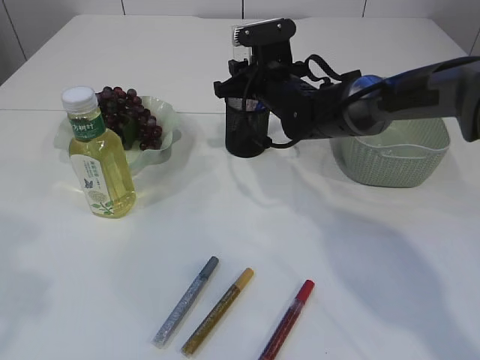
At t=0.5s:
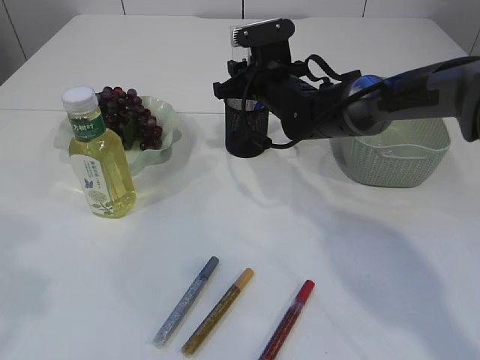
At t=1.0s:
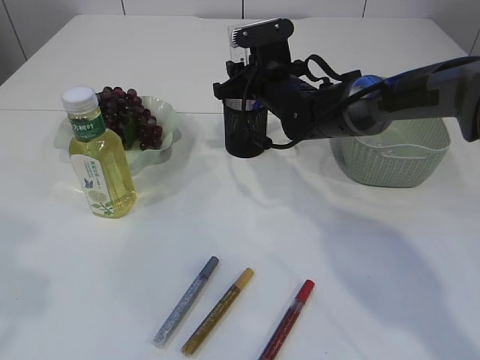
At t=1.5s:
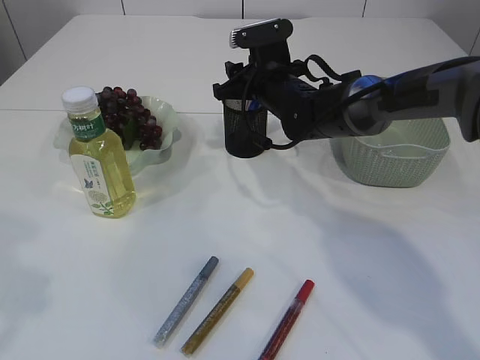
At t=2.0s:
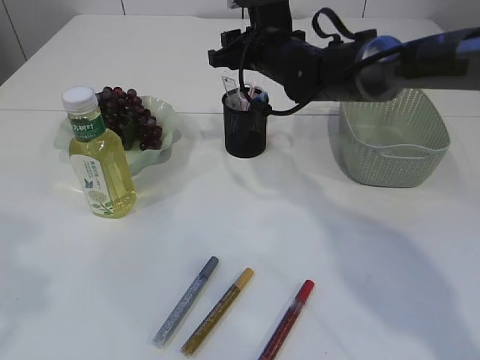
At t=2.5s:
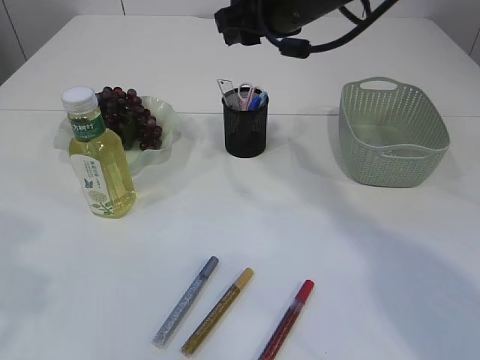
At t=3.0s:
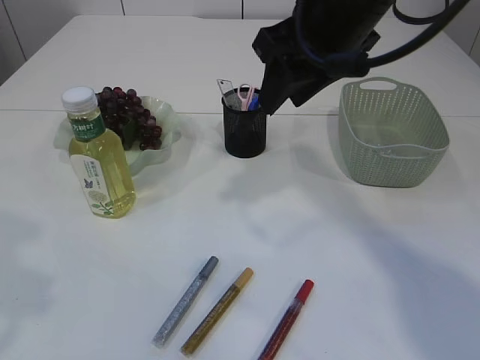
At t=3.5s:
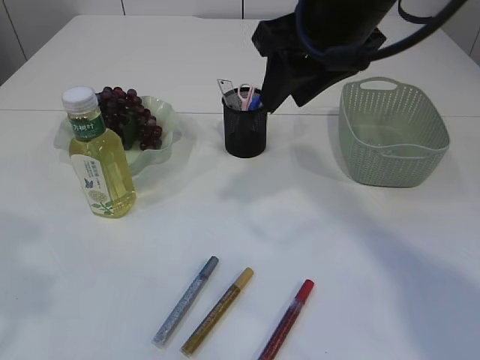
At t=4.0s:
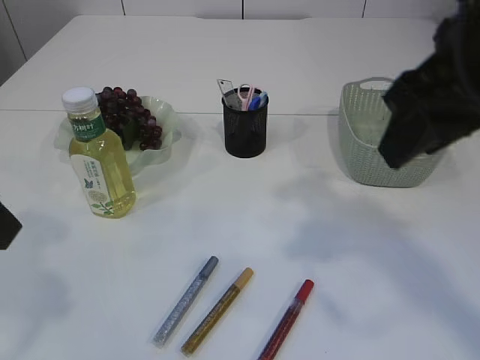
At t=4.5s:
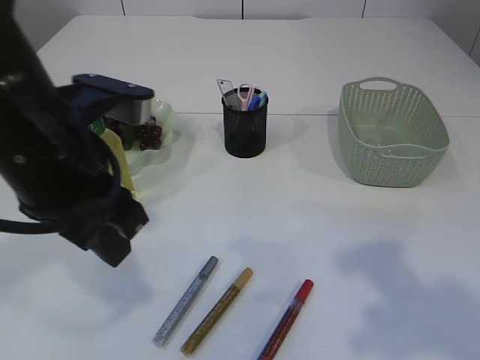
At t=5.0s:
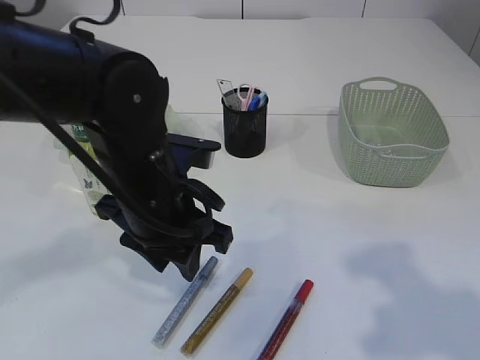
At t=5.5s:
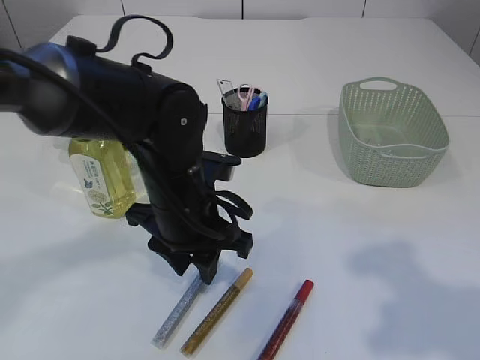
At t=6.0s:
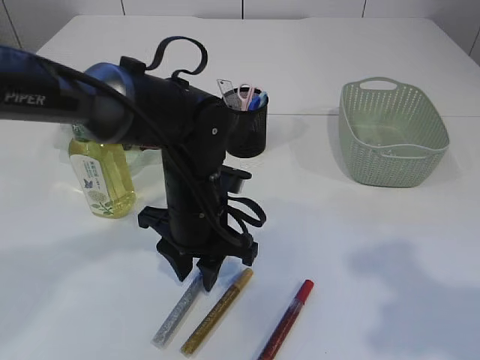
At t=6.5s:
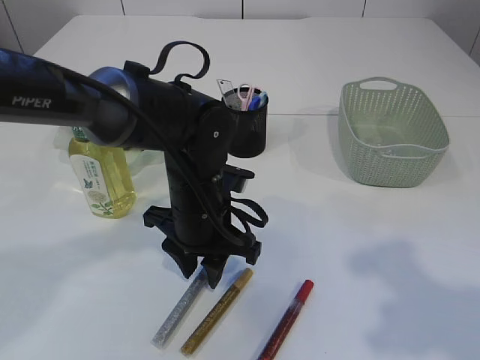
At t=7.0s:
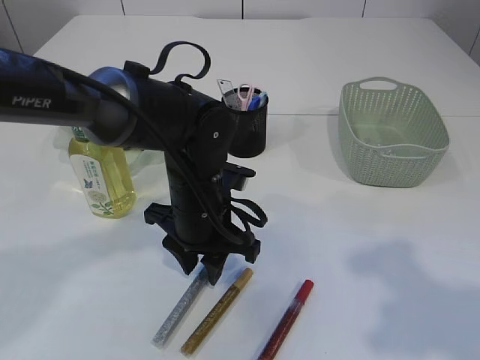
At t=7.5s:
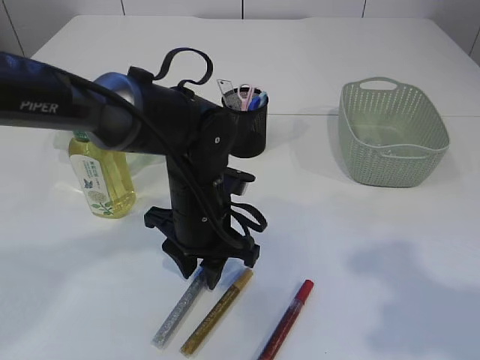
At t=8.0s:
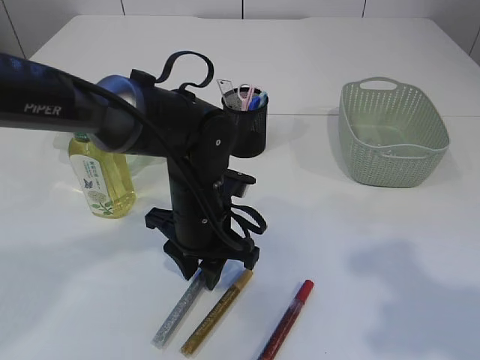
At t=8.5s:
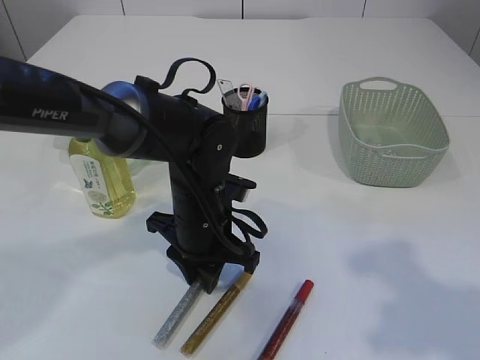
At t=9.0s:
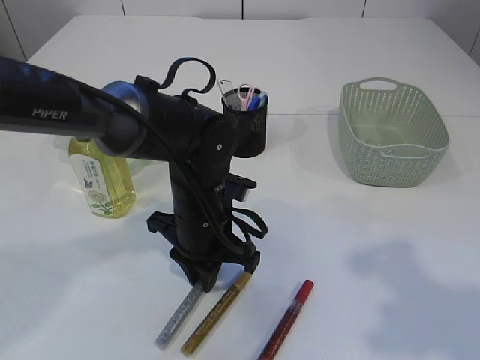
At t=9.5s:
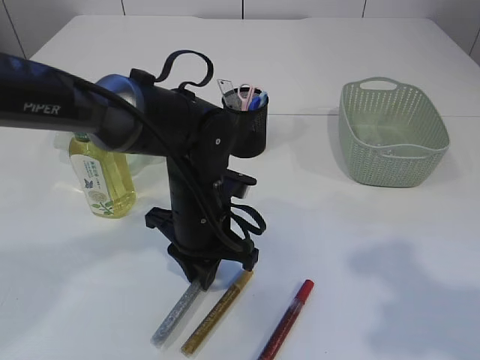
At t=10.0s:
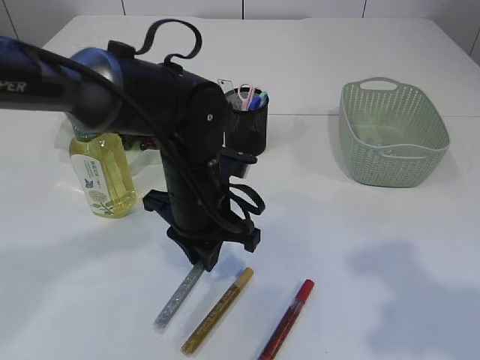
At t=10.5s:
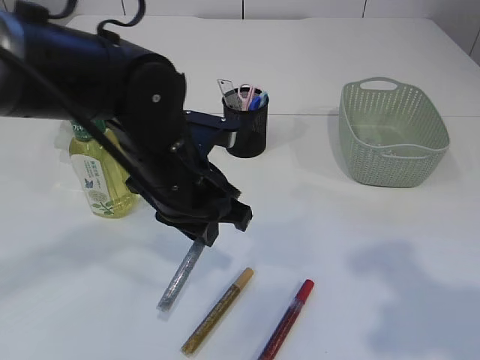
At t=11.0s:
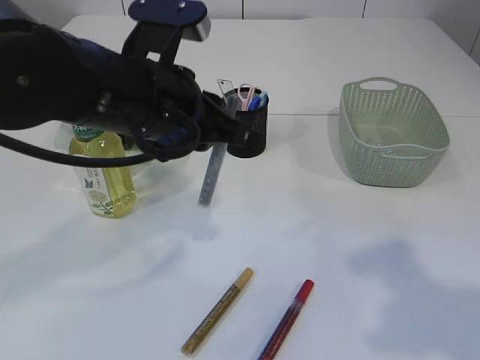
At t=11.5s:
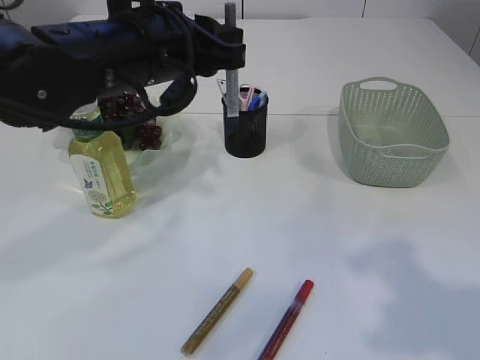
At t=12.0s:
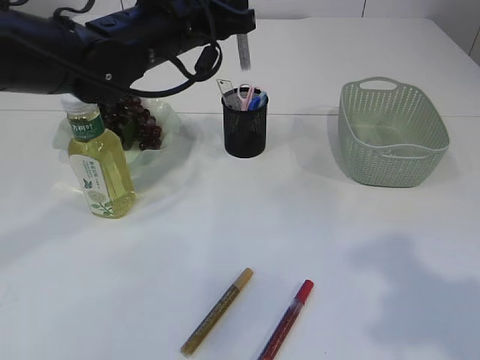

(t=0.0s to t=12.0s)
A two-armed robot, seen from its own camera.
Step, t=0.0s - t=2.0s: Place the ruler into the pen holder.
Step, t=2.5s - t=11.0s: Pick up the pen with left arm.
t=0.0s - t=2.0s: The grippers make only small movements.
t=2.0s - t=4.0s: The right gripper heads backward and upward, covering some 30 cm.
t=4.0s - t=6.0s: The left gripper heads downward, to the right and forward, covering roughly 30 cm; the right gripper shifts about 15 cm backward and to the right.
t=6.0s - t=10.0s: There are only small adjustments of the grippers.
t=10.0s - t=12.0s: The left gripper moves upward and forward, some 15 cm.

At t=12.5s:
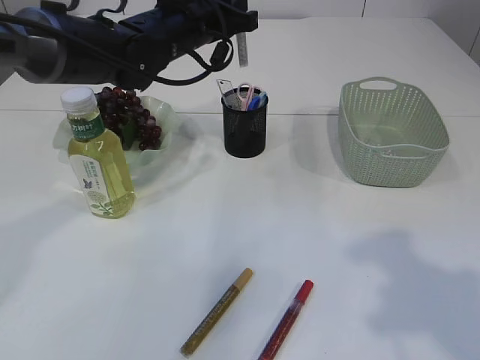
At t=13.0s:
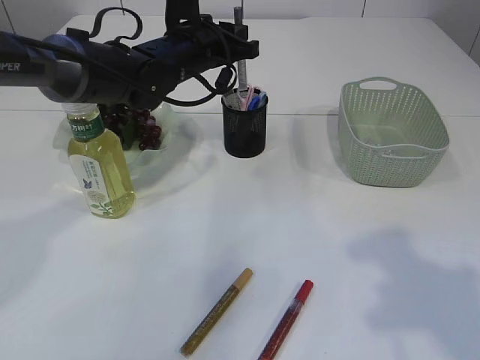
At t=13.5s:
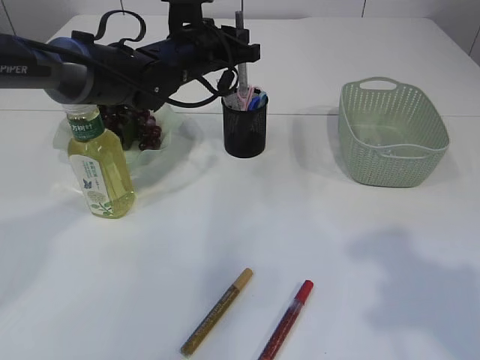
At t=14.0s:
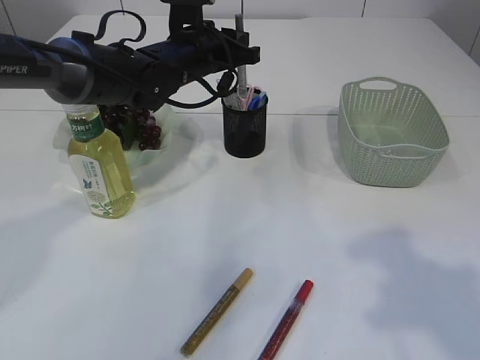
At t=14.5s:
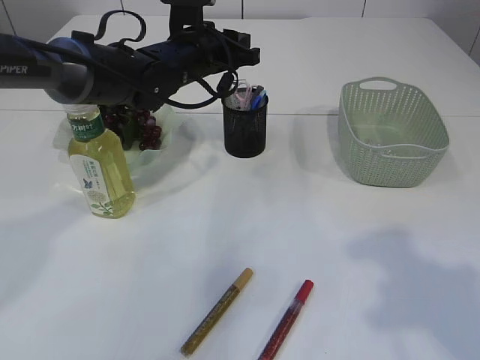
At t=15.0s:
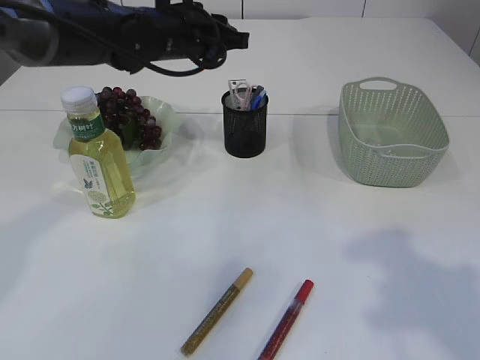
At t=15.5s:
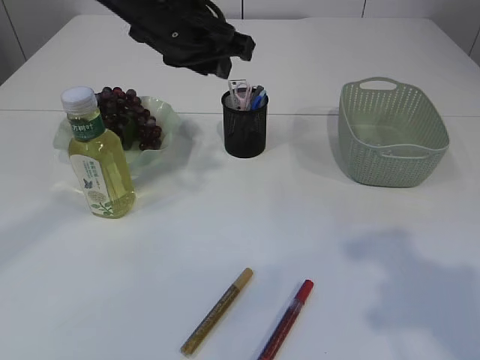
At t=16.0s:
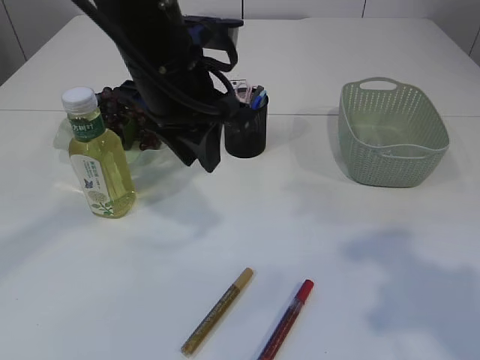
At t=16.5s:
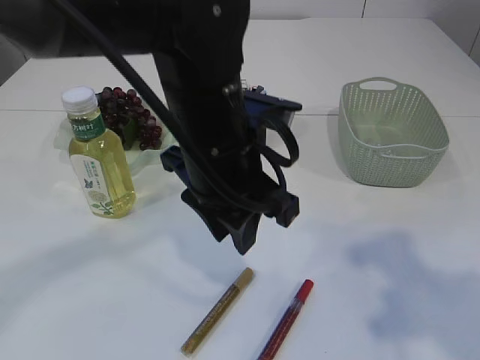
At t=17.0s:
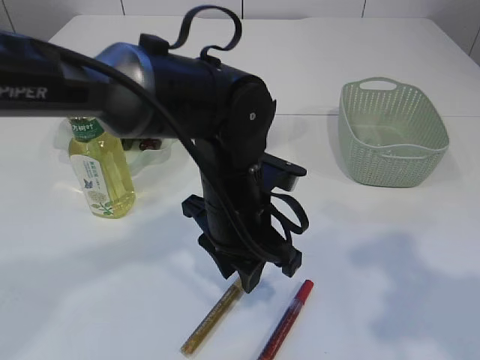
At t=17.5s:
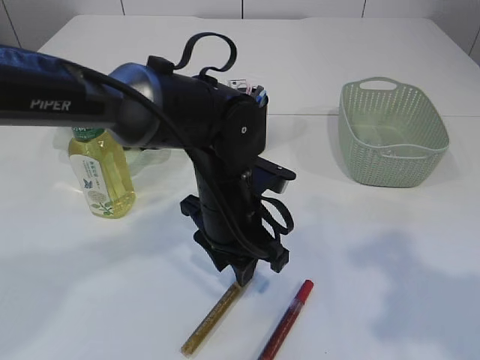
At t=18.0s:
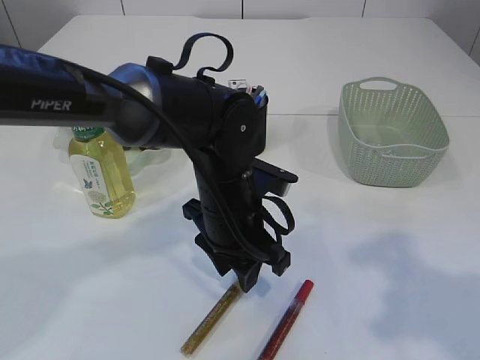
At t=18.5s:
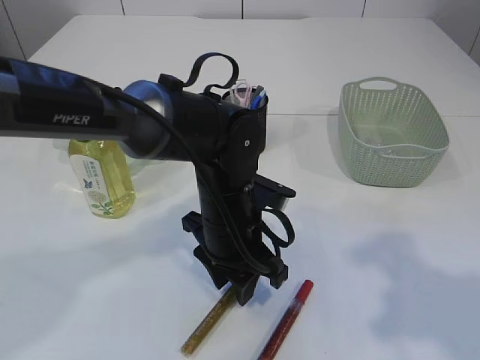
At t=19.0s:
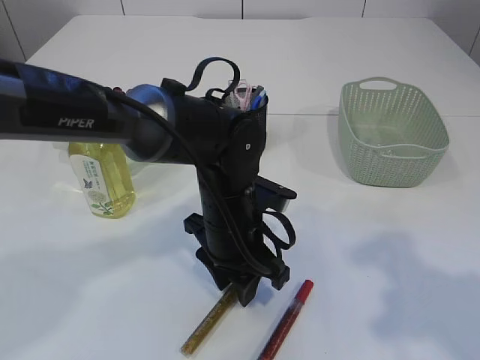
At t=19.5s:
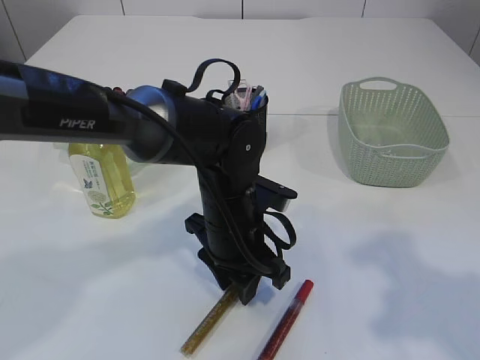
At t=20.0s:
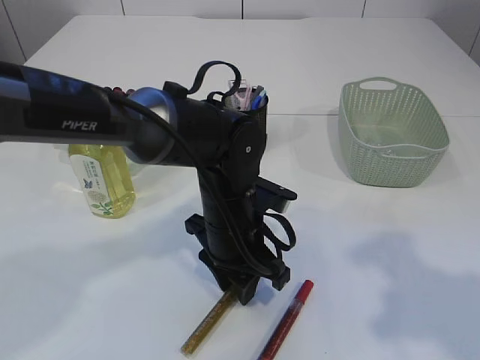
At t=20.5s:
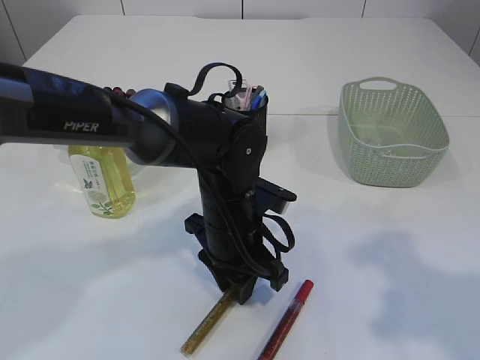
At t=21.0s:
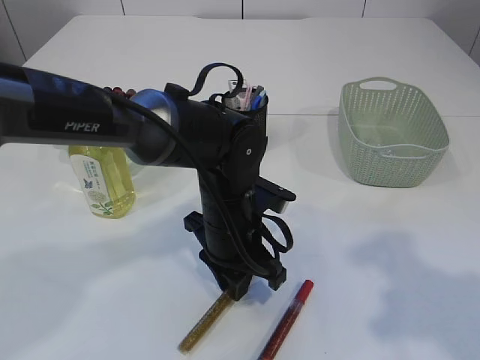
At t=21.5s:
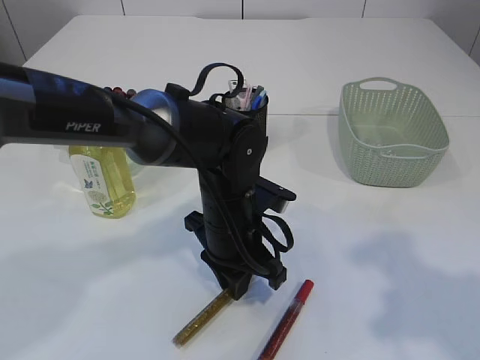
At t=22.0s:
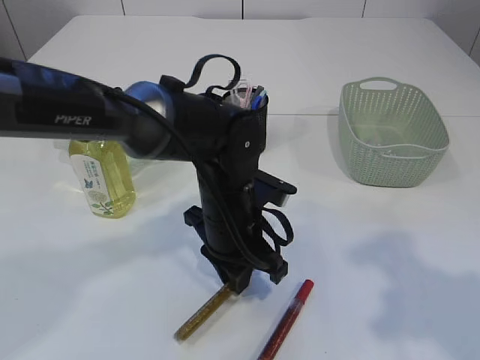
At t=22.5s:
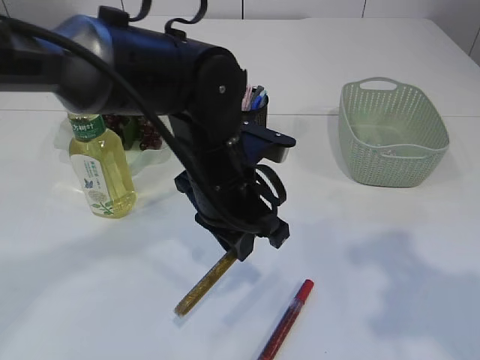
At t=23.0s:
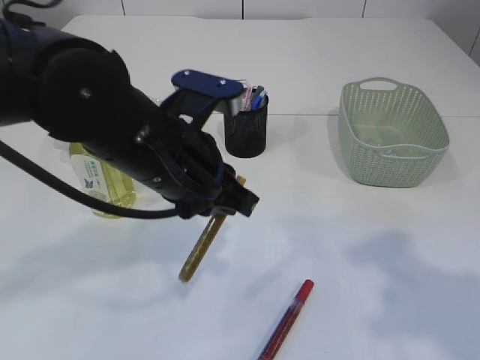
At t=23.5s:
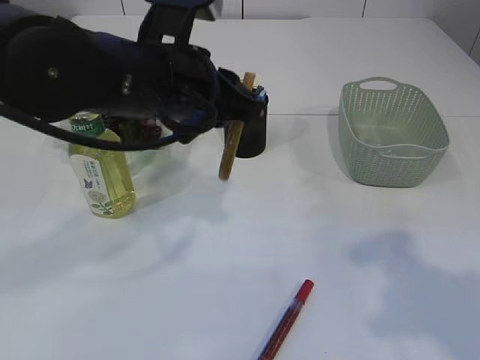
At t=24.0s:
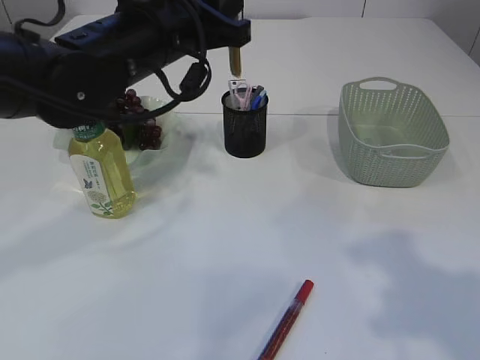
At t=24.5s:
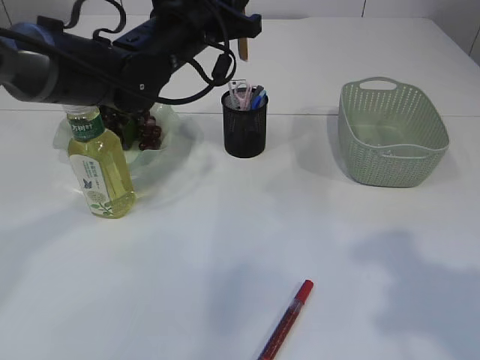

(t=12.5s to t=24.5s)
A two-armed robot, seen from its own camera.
Step, t=12.5s - t=14.5s: Place the pen into the pen holder.
Step, t=15.0s - t=22.5s: Pick up the pen with left arm.
t=12.5s - t=14.5s: The left gripper moves some 5 cm.
t=14.5s - t=16.5s: The left gripper is displaced backward by about 20 cm.
t=16.5s - t=18.5s: The left gripper moves downward, roughly 10 cm.
t=18.5s - t=20.5s: The two grippers keep their place.
t=20.5s - t=22.5s: The left gripper is displaced upward by roughly 5 cm.
t=22.5s - t=24.5s: The left gripper is displaced forward, upward and to the left by some 15 cm.

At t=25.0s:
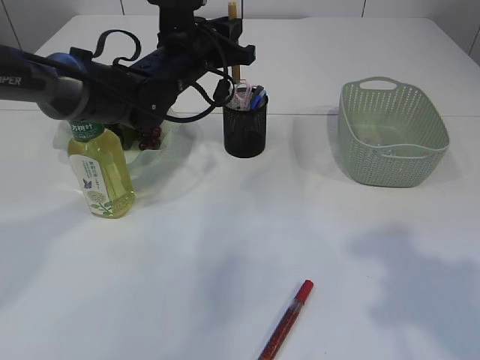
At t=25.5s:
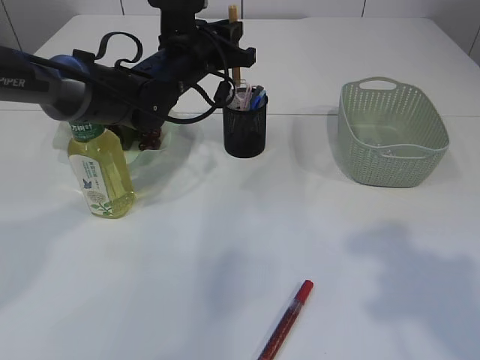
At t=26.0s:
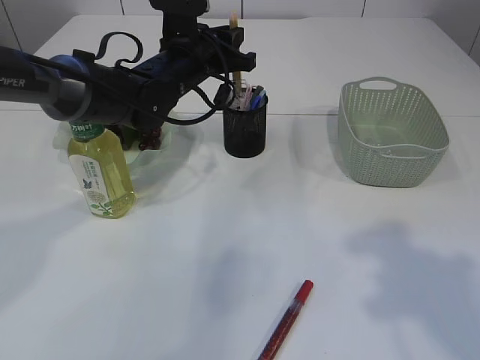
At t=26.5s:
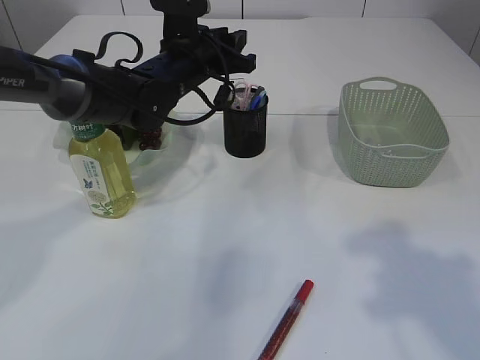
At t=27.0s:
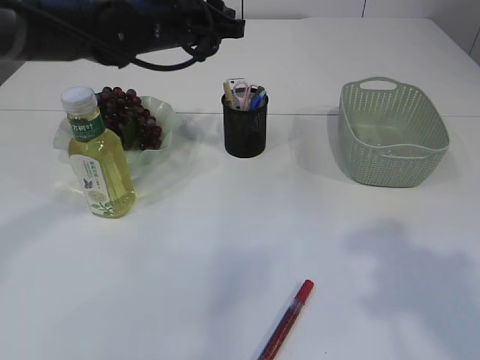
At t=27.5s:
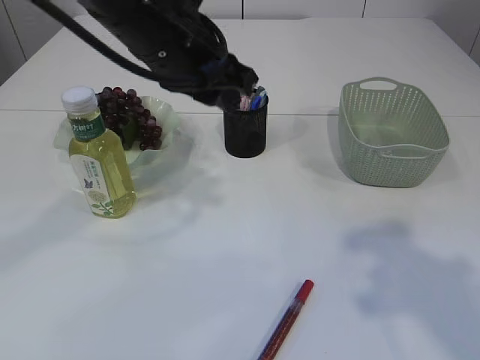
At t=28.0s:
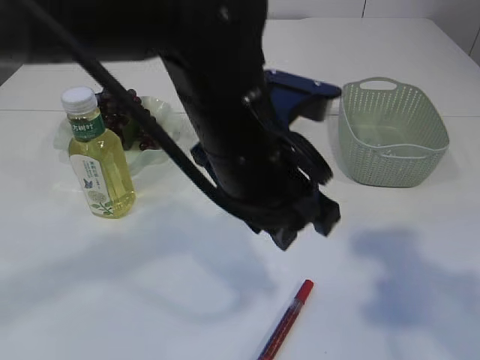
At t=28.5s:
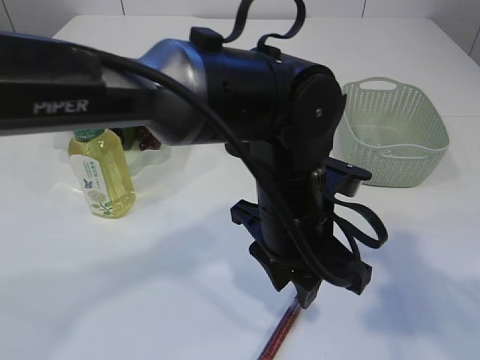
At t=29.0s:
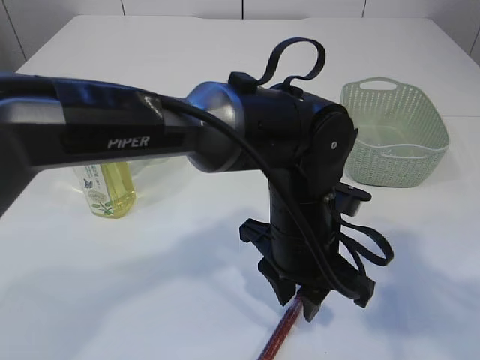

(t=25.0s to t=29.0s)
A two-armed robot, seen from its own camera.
Step, t=25.0s - t=27.0s: Place the pen into the pen holder.
t=25.0s - t=27.0s: The left gripper heads upward, covering approximately 5 cm.
t=27.0s - t=29.0s: The left gripper shifts about 25 cm backward, to the right and downward.
